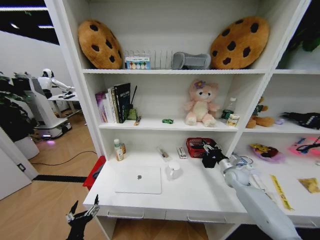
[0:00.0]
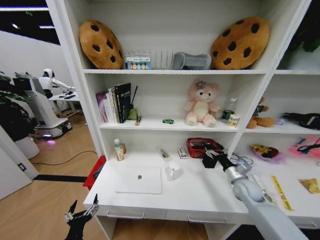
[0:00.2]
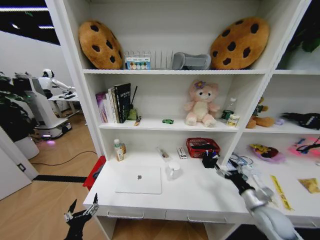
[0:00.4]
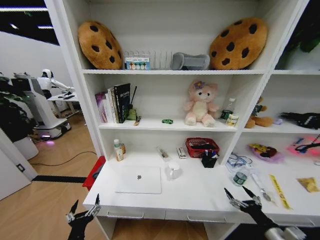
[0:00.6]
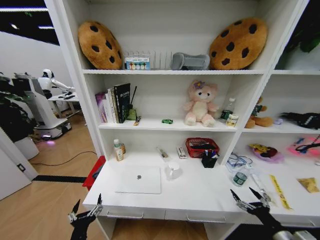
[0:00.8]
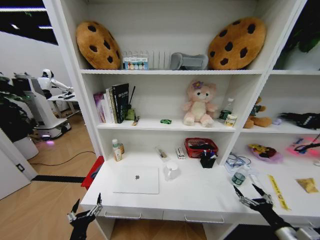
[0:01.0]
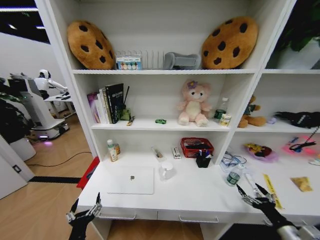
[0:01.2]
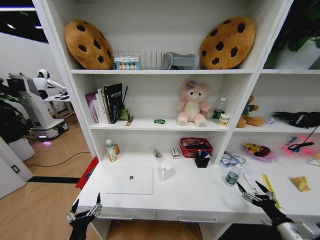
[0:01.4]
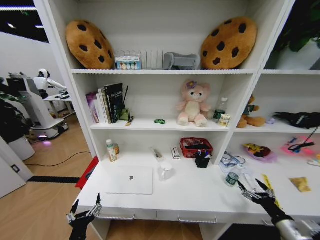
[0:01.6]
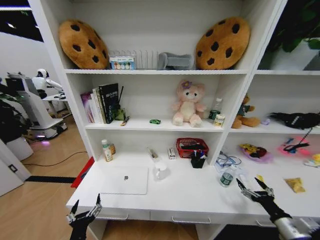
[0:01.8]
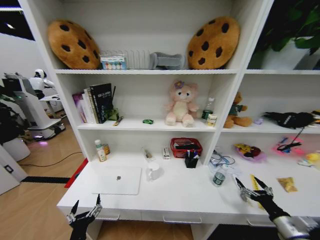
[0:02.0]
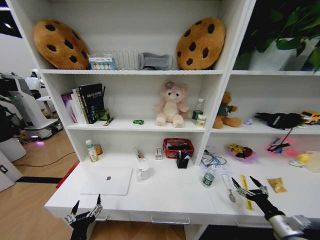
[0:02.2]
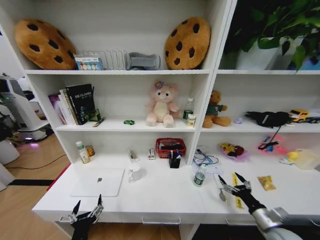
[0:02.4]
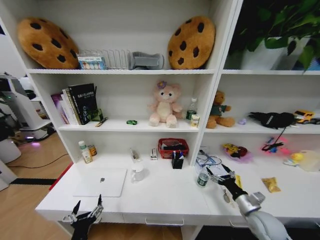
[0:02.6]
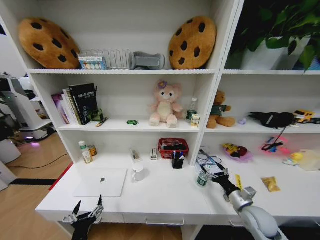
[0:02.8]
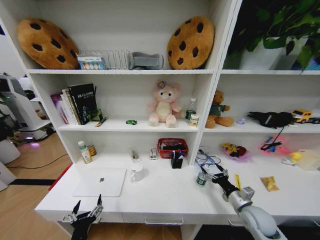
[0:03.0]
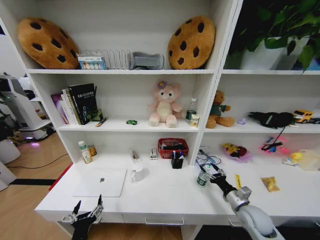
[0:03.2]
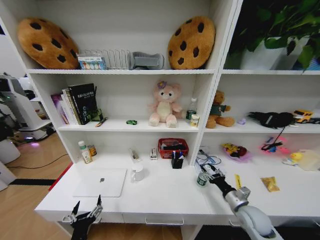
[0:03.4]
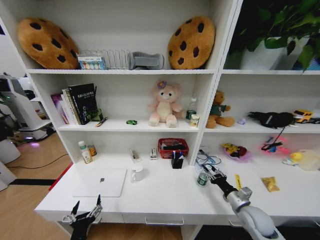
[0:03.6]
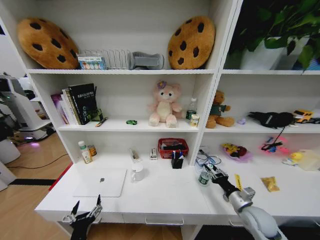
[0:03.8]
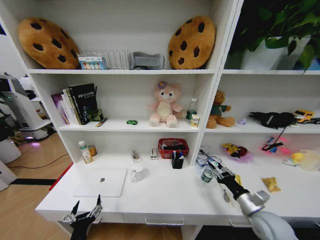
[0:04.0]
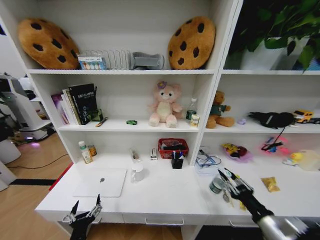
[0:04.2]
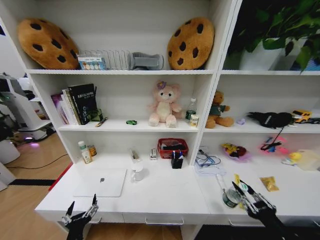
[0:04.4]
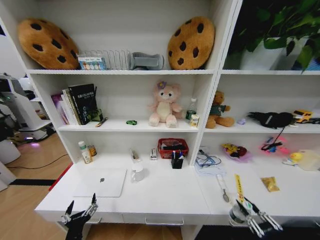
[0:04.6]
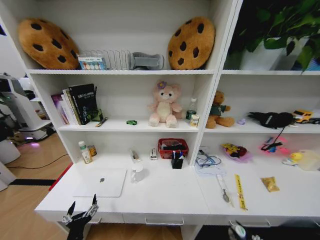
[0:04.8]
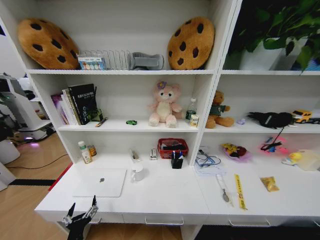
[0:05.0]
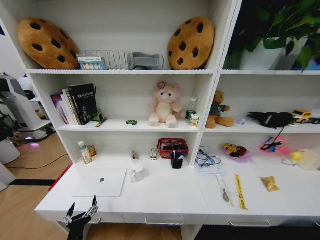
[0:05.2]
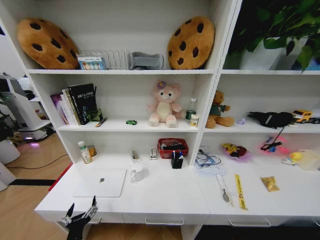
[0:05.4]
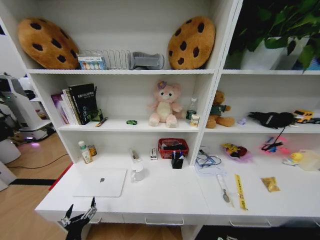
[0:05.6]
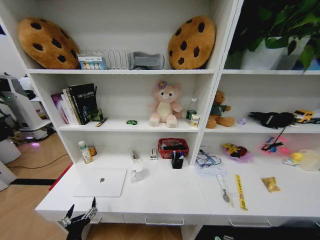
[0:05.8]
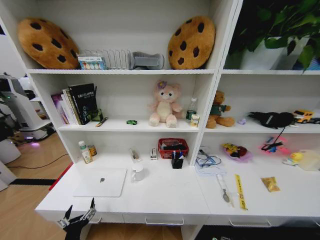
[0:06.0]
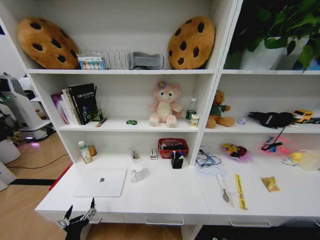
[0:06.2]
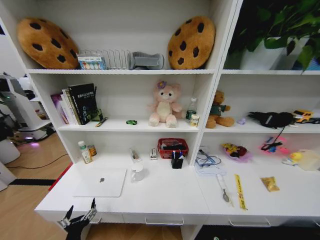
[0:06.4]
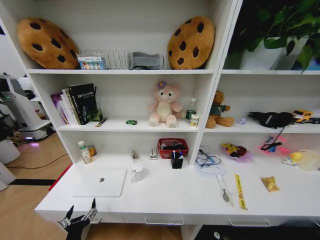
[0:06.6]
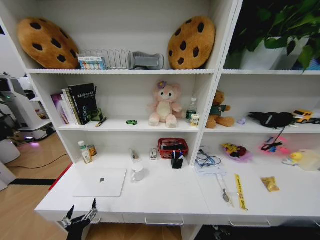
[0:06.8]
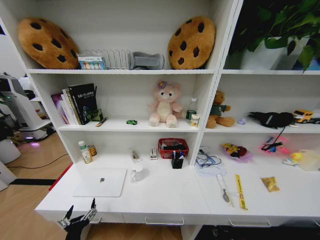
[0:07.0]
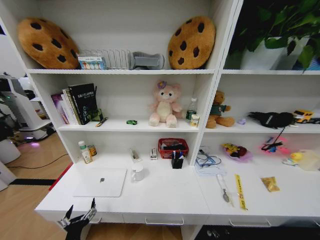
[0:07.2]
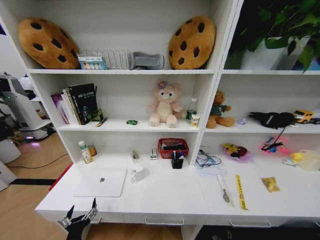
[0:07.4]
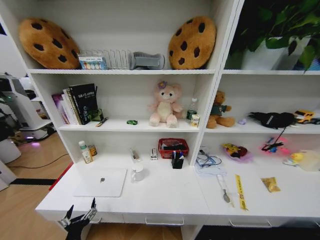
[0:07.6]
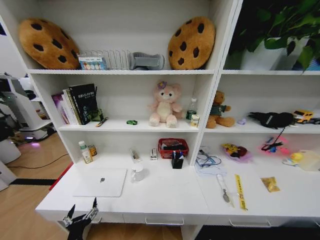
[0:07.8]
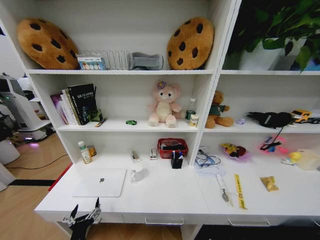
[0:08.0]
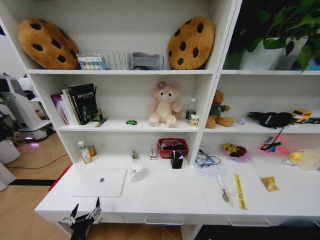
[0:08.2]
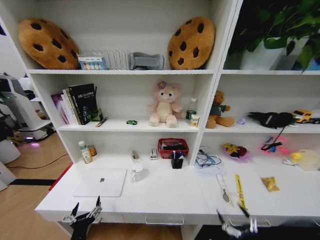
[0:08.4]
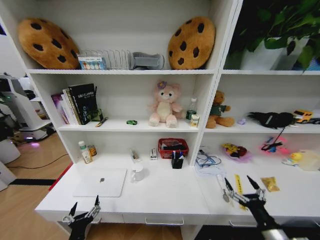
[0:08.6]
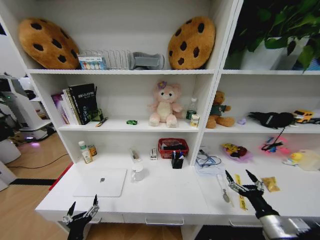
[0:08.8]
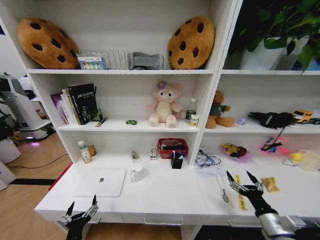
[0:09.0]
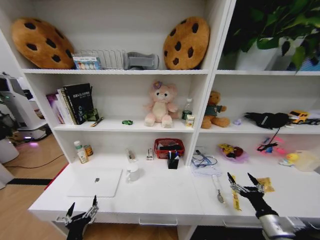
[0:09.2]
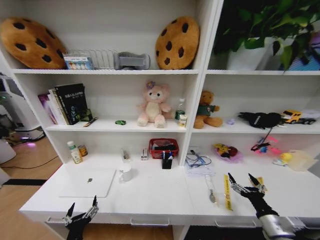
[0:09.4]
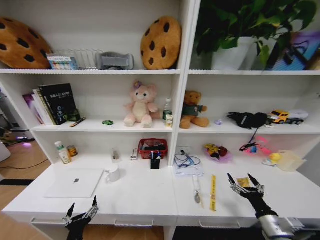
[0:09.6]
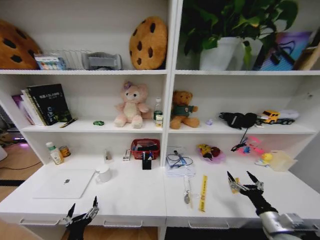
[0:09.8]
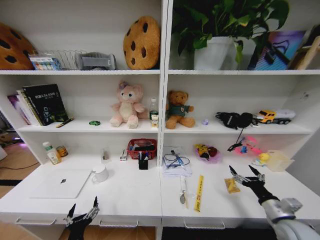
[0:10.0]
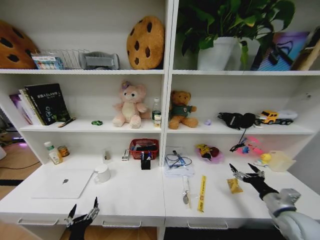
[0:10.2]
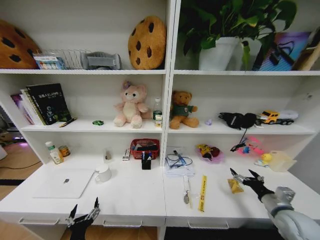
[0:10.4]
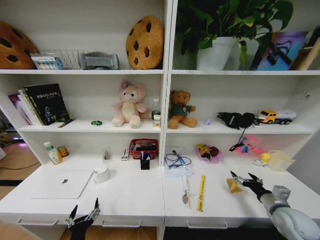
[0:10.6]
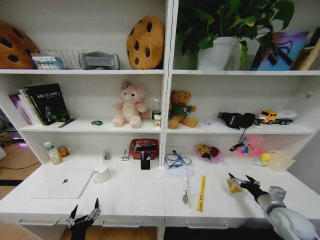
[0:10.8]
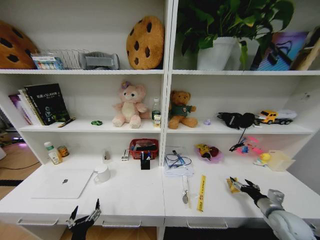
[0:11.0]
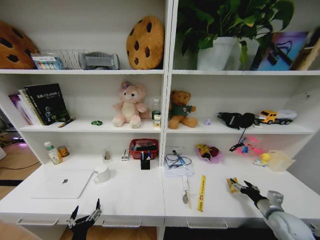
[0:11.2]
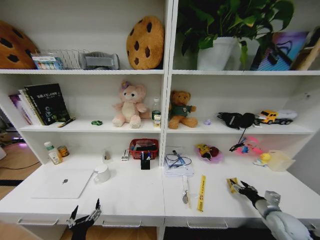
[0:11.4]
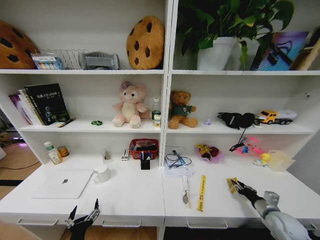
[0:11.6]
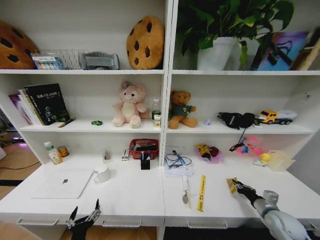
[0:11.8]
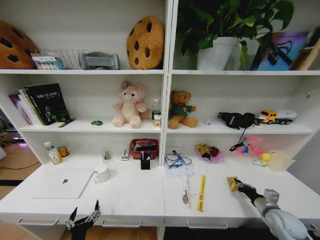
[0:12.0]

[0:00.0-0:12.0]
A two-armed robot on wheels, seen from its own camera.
Task of the whole recording: Organize the objects on the table.
0:00.0 to 0:01.6: The right gripper moves backward, some 30 cm.
0:01.6 to 0:03.0: The right gripper shifts roughly 15 cm forward and to the left.
0:03.0 to 0:04.4: The right gripper shifts some 20 cm backward and upward, and closes.
0:04.4 to 0:06.0: The right gripper goes roughly 35 cm downward and to the right.
0:06.0 to 0:07.6: The right gripper heads backward, to the left and downward, covering some 15 cm, and opens up.
0:07.6 to 0:09.0: The right gripper goes approximately 35 cm upward.
0:09.0 to 0:10.4: The right gripper is displaced forward and to the right by some 10 cm.
0:10.4 to 0:12.0: The right gripper goes roughly 5 cm downward, and closes.

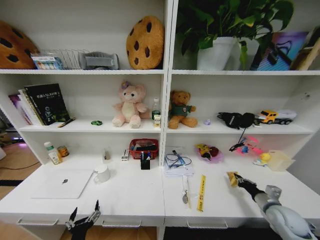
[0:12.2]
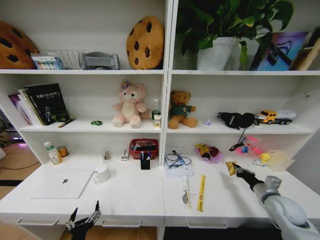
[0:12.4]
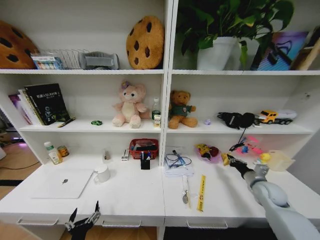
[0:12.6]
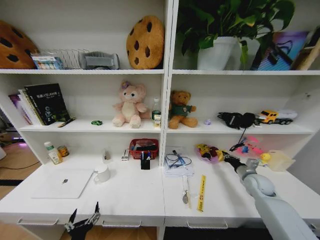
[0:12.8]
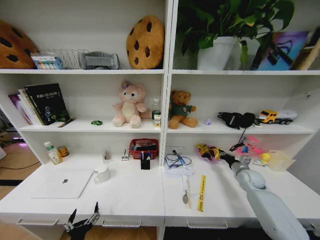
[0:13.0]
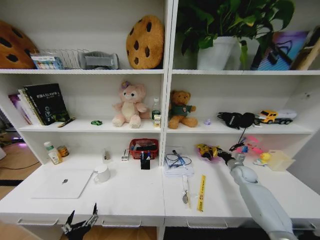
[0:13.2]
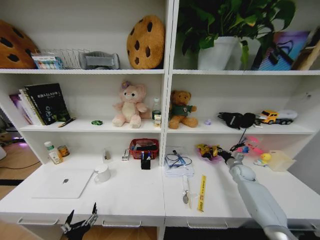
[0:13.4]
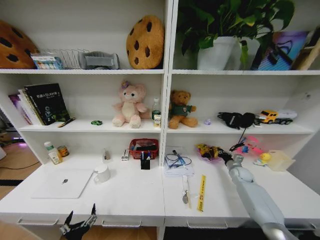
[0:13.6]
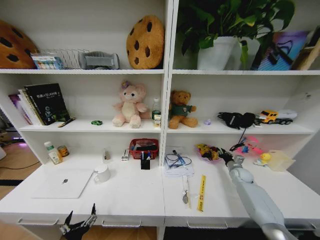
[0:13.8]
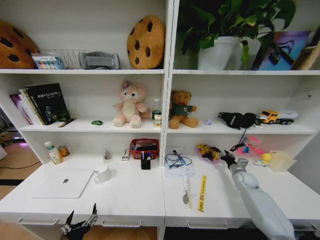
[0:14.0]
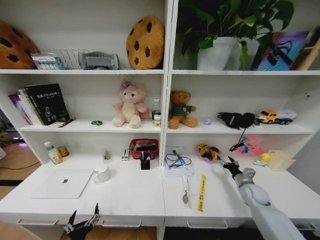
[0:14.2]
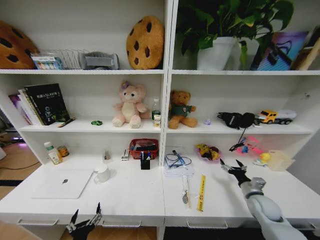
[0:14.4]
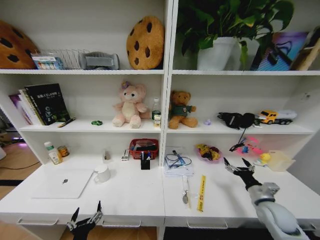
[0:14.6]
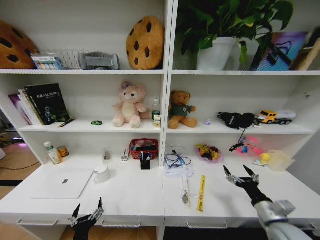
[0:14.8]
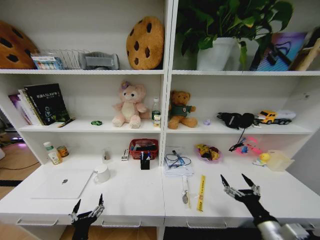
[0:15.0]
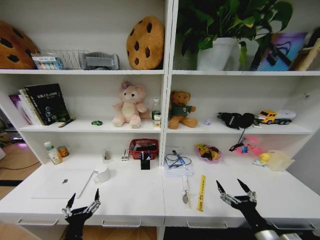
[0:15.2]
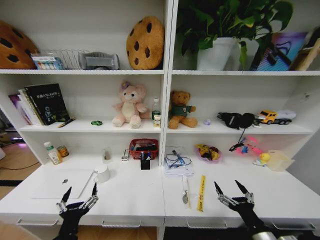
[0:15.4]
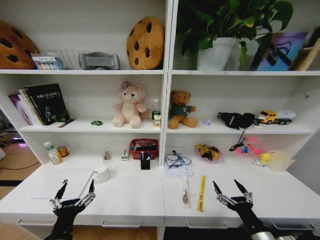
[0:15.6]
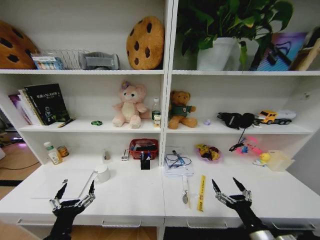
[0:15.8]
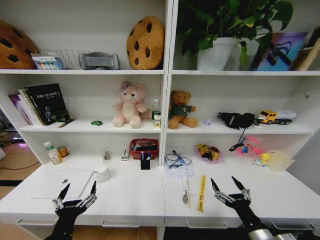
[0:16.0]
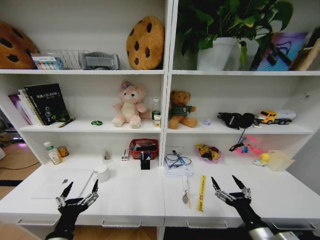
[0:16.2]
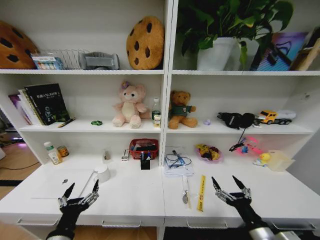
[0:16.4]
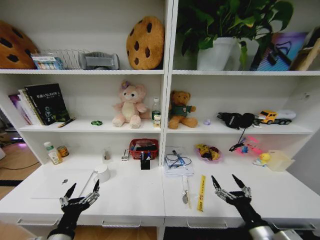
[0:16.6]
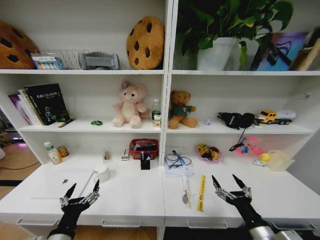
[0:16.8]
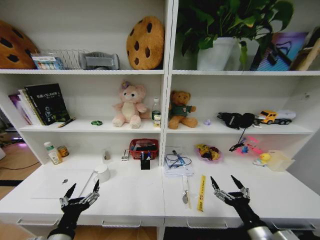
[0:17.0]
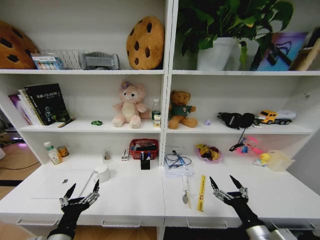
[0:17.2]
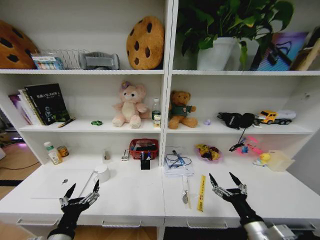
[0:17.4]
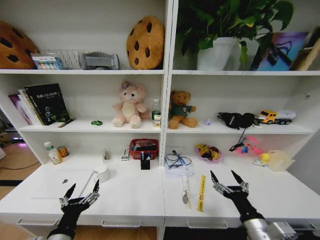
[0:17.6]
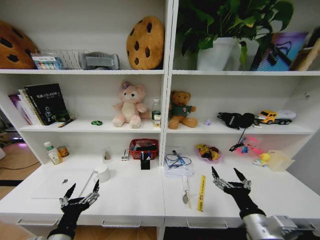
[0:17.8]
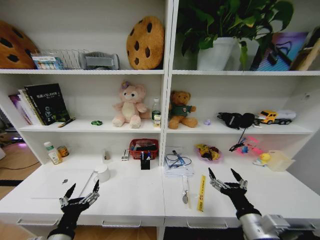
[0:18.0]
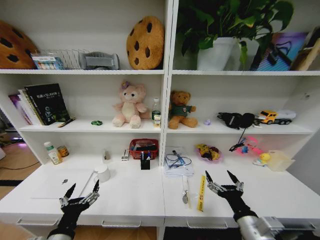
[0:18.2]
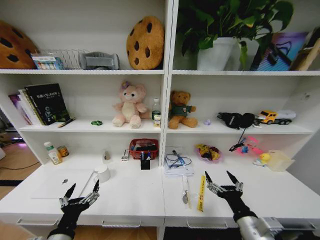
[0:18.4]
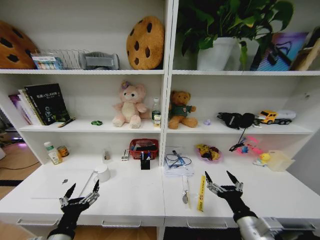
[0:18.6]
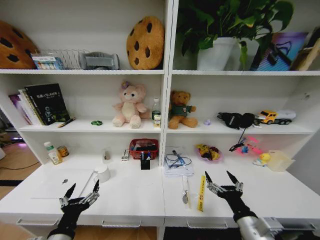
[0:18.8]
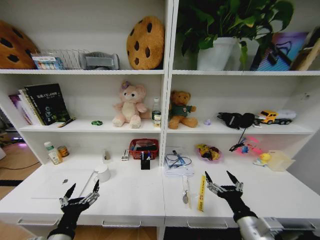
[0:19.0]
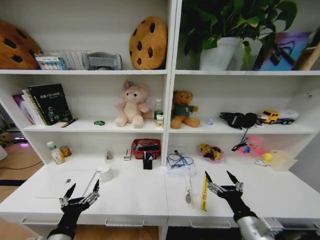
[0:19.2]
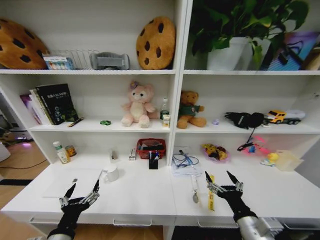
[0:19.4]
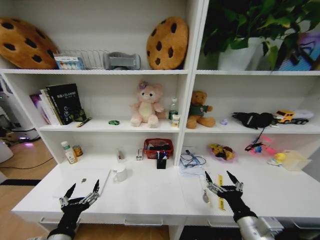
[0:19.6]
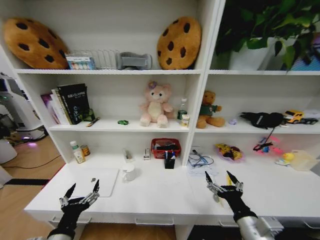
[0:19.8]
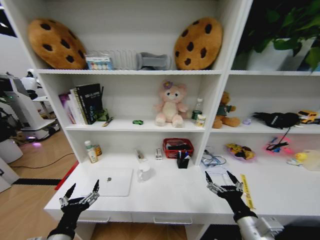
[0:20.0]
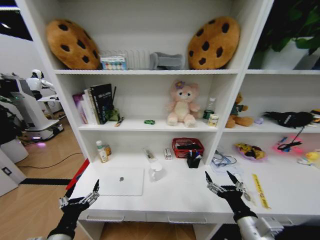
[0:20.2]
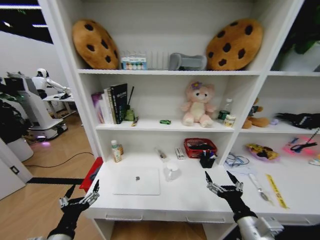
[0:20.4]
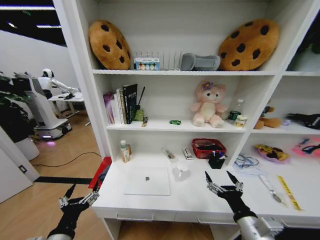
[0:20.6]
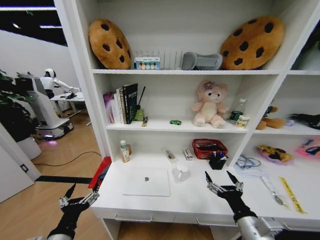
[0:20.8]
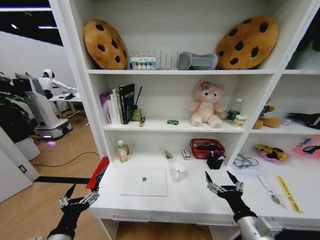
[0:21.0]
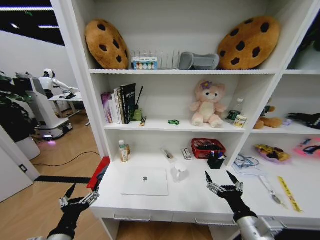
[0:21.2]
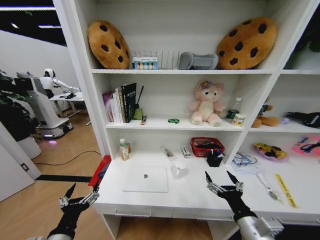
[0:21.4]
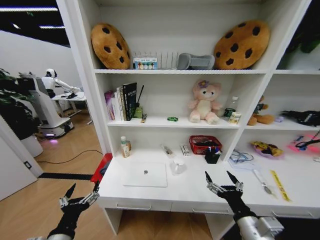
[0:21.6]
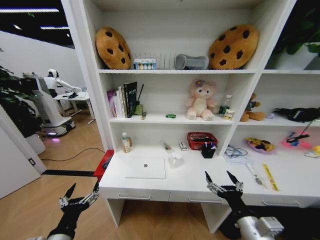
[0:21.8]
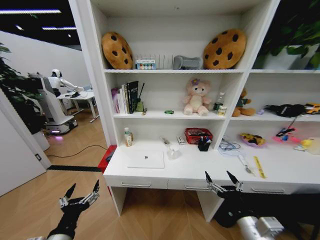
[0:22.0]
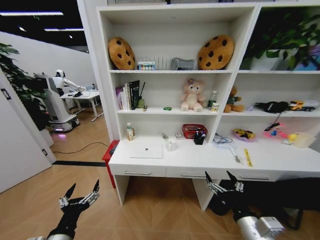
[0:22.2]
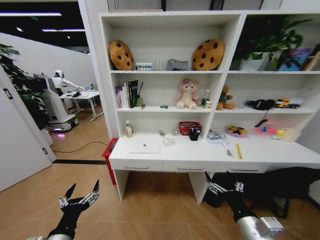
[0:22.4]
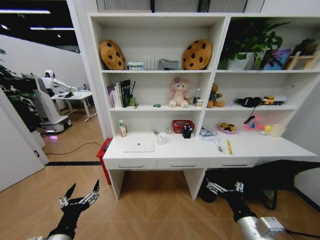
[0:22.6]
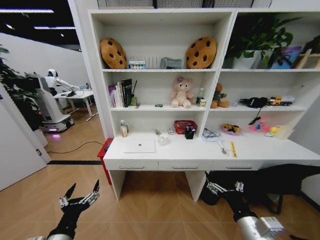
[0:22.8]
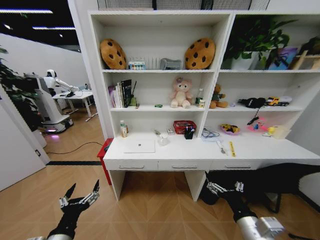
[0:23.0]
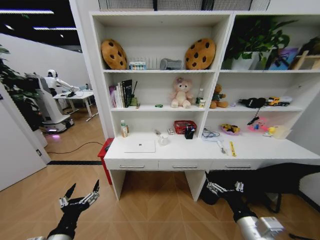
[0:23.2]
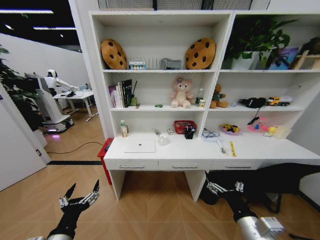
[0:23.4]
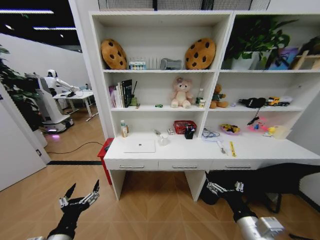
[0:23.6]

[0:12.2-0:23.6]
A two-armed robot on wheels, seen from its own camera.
Task of the whole recording: Organize the objects on the table.
0:12.2 to 0:13.6: The right gripper heads forward, covering about 20 cm.
0:13.6 to 0:15.0: The right gripper goes about 35 cm backward, and opens up.
0:15.0 to 0:16.4: The left gripper goes roughly 10 cm upward.
0:16.4 to 0:17.8: The right gripper shifts by roughly 5 cm.
